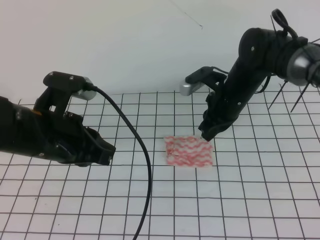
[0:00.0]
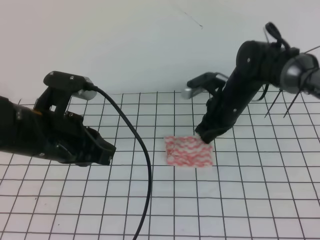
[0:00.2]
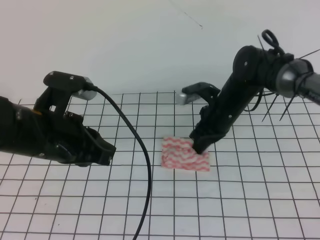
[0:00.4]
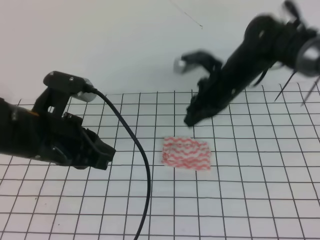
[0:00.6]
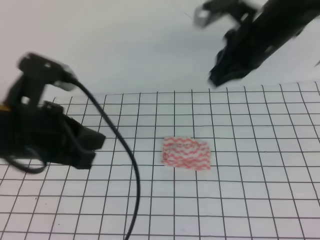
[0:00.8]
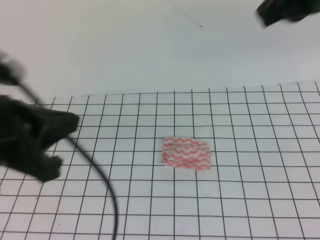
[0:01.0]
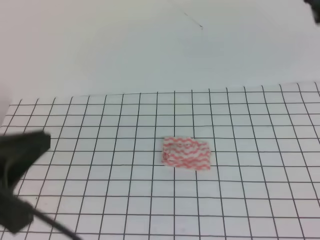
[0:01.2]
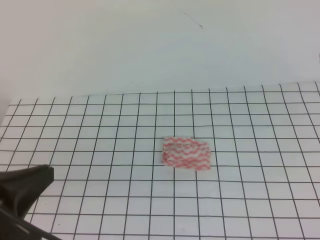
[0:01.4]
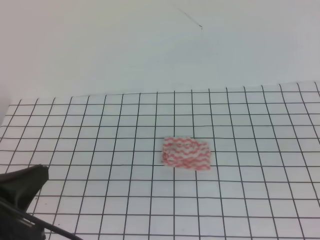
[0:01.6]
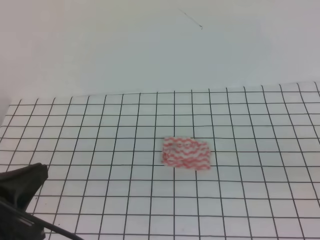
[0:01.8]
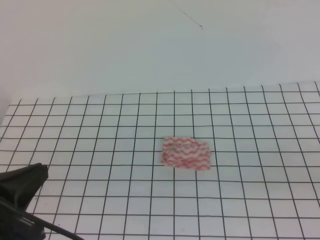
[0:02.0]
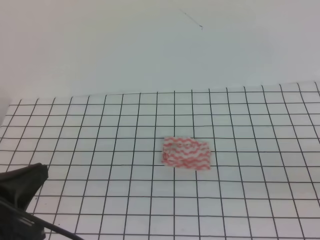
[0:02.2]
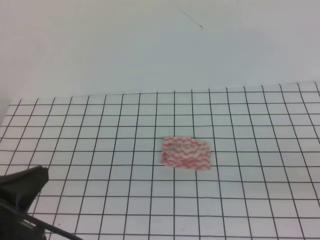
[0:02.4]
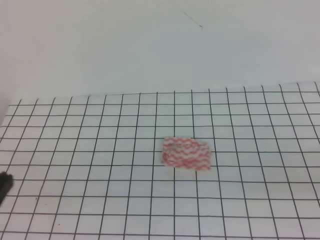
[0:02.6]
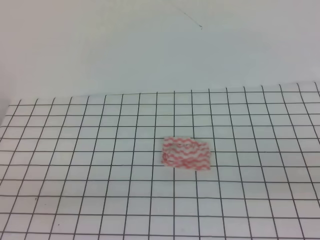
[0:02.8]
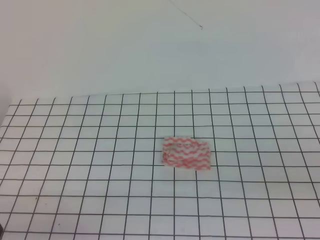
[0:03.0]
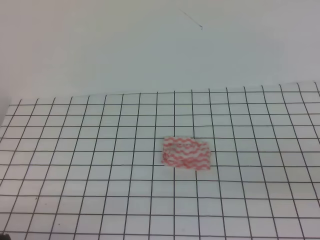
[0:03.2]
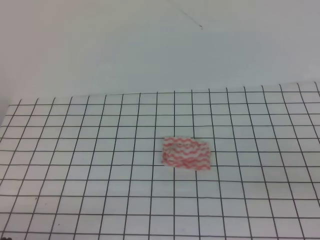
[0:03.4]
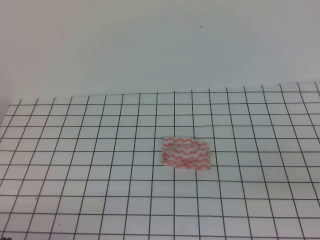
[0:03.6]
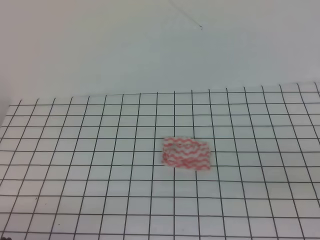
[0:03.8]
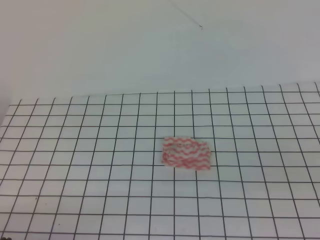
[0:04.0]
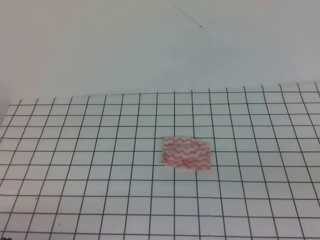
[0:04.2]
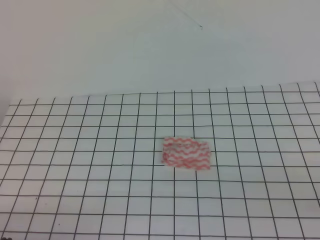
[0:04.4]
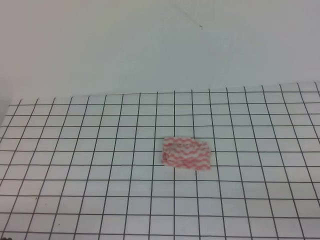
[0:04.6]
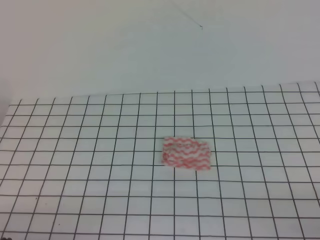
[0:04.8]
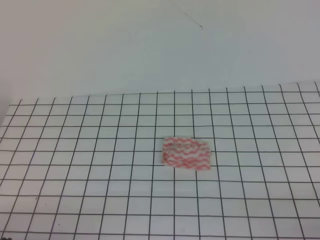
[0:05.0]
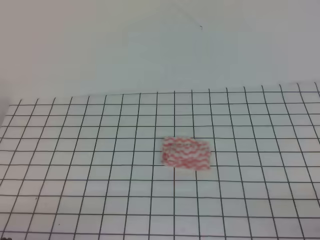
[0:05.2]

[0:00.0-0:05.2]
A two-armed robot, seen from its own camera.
Step, 0:00.0 to 0:05.2: Fold the towel.
0:00.0 to 0:01.8: The left gripper heads backward and to the left, covering about 15 cm. The right gripper shifts approximately 30 cm backward and to the right.
0:01.8 to 0:03.4: The left gripper heads downward and backward, covering roughly 15 cm.
